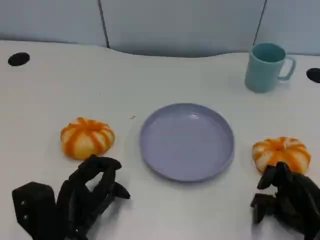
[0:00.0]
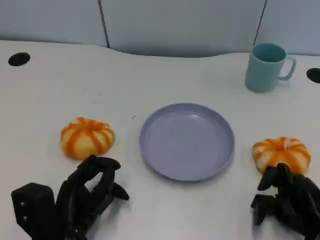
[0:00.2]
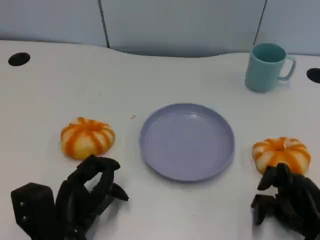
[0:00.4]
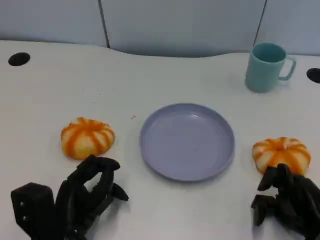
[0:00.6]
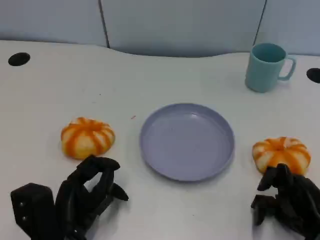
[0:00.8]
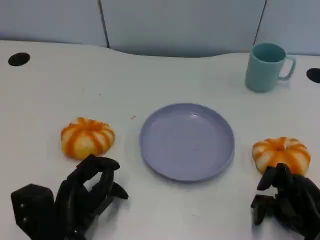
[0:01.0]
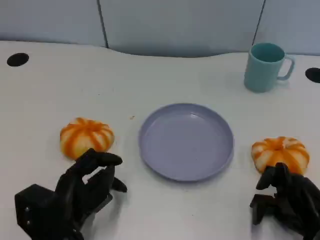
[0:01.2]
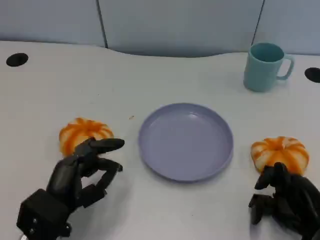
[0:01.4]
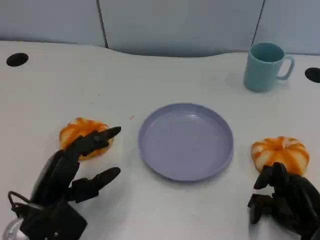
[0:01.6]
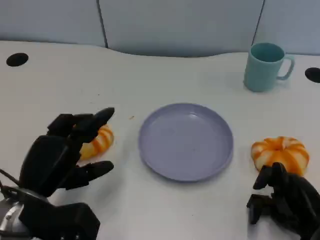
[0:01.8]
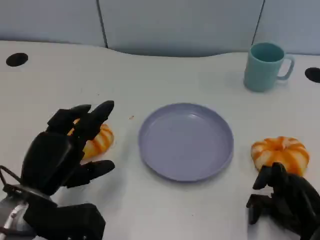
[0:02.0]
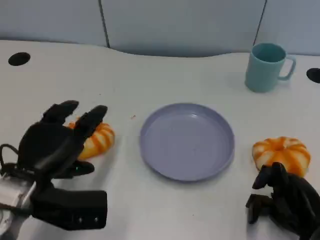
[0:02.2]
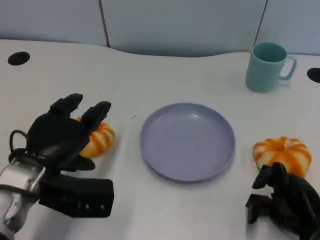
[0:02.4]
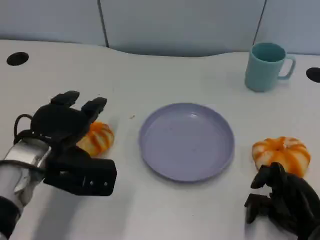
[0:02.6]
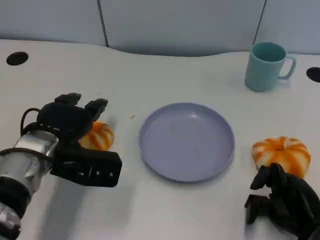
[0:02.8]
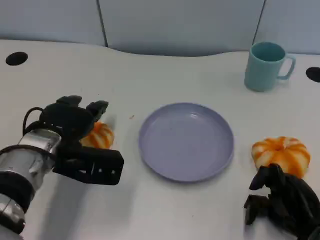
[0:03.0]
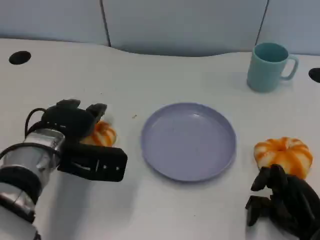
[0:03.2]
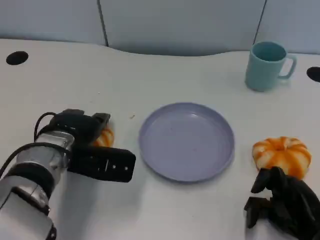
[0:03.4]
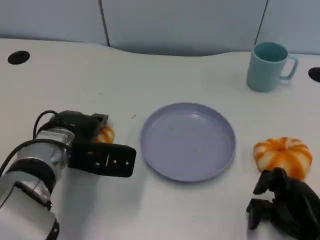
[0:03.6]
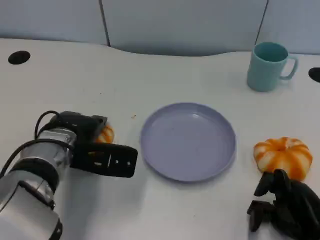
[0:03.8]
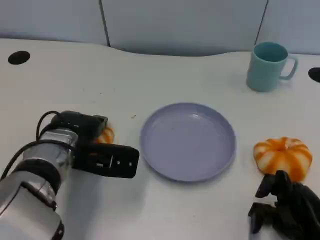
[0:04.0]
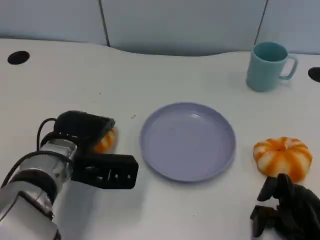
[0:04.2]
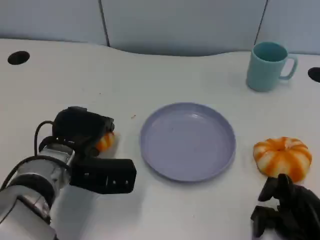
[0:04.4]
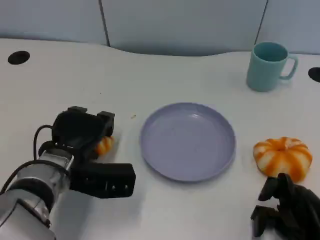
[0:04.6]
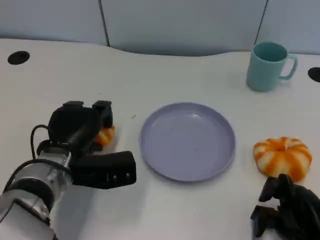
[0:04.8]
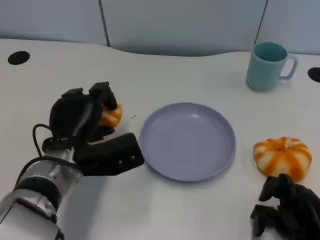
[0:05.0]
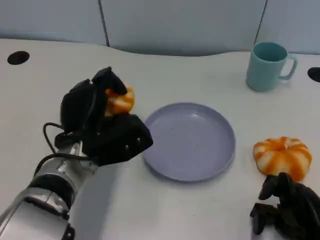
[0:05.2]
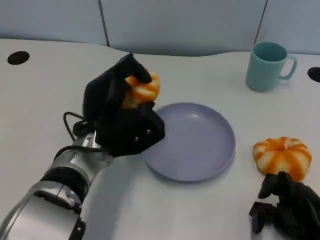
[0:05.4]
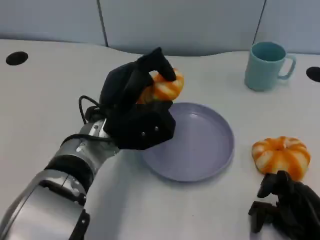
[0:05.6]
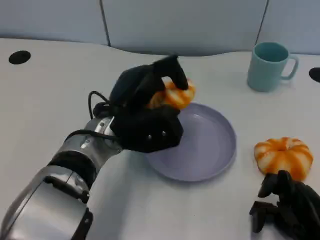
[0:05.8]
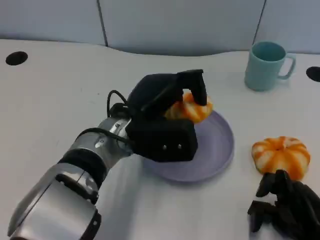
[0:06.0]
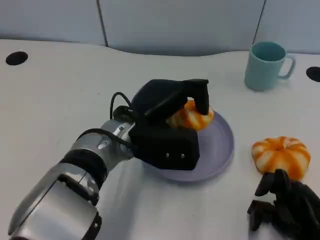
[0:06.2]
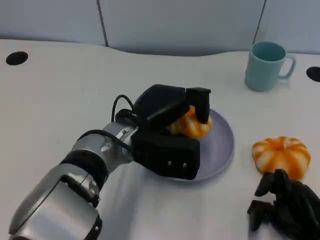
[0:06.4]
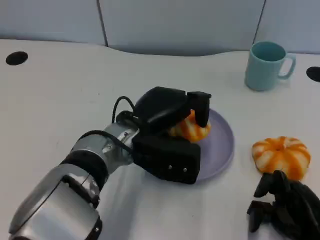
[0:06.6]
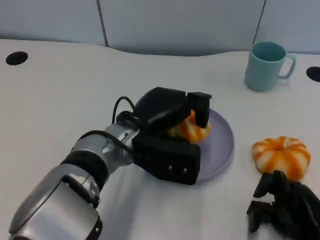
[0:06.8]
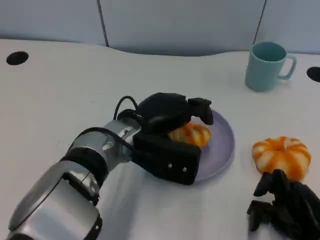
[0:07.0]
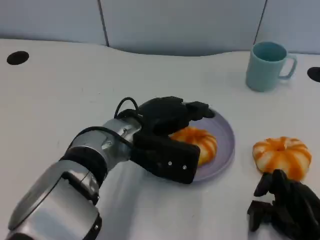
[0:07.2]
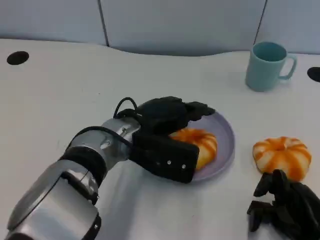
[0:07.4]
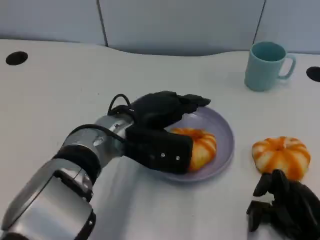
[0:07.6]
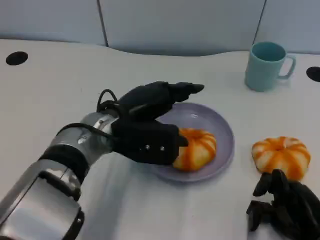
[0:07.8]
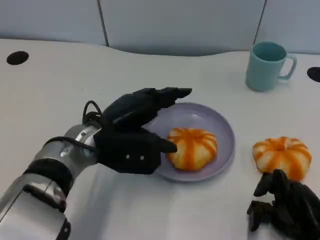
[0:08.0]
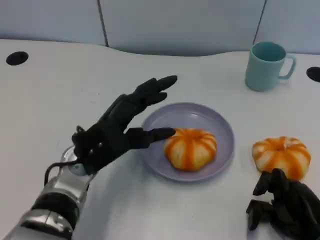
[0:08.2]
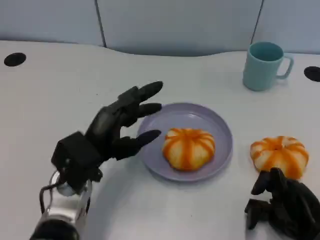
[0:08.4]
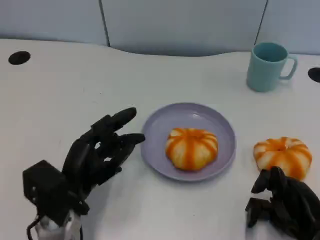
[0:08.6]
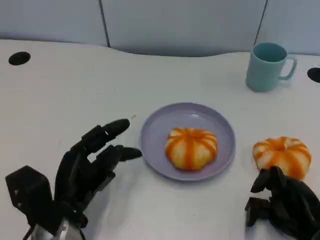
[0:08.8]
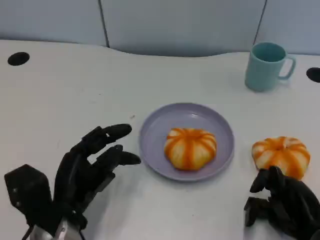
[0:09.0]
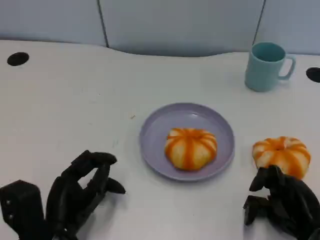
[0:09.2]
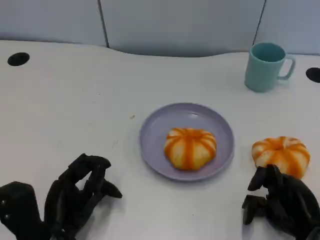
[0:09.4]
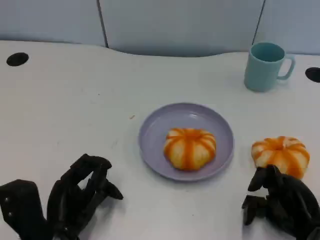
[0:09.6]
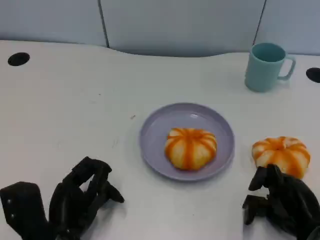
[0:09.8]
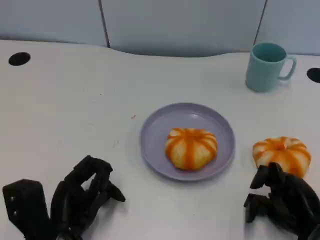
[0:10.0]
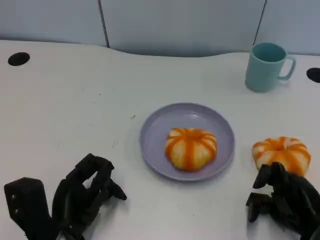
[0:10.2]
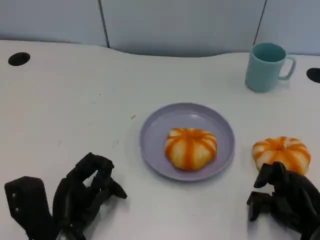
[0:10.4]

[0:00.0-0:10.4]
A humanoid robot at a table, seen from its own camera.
Task of the whole recording: Grasp the bread from the table and place it into the plate.
0:01.4 to 0:03.0: The left hand heads forward and upward, covering about 10 cm.
0:03.0 to 0:04.4: The hands stay close to where they were, moving slightly.
0:04.4 to 0:06.0: The left hand goes roughly 10 cm to the right and upward.
0:07.4 to 0:09.0: The left hand heads to the left, backward and downward, covering approximately 15 cm.
0:09.0 to 0:10.4: The hands make only small movements.

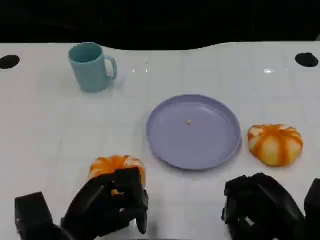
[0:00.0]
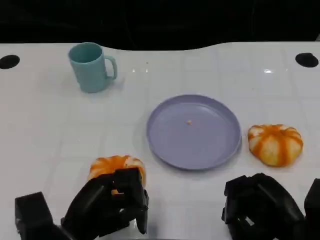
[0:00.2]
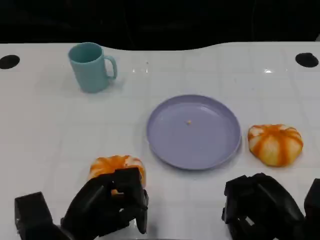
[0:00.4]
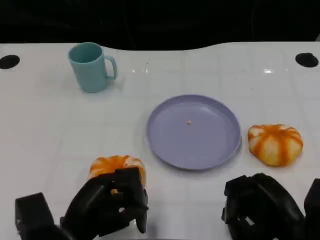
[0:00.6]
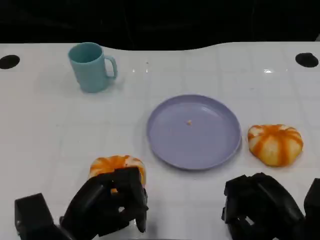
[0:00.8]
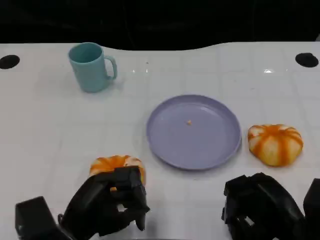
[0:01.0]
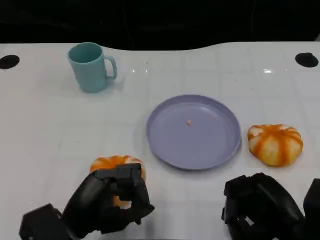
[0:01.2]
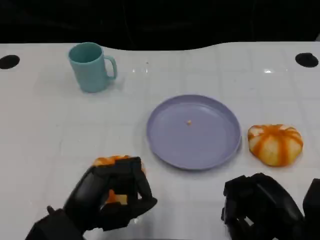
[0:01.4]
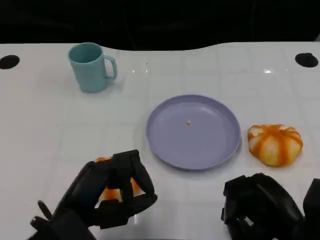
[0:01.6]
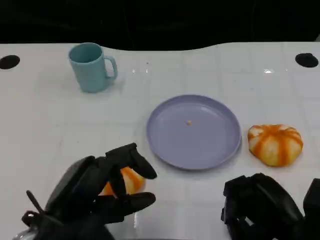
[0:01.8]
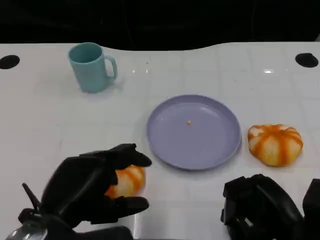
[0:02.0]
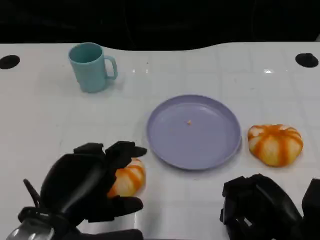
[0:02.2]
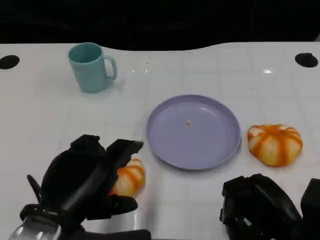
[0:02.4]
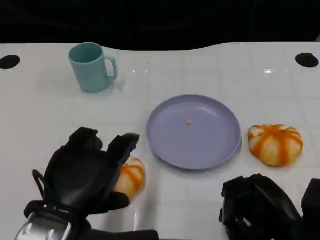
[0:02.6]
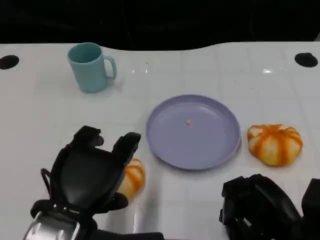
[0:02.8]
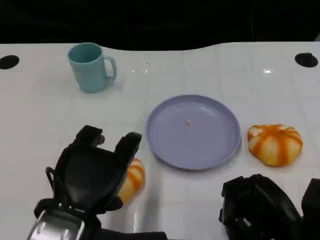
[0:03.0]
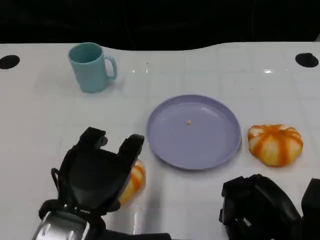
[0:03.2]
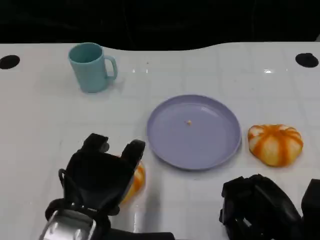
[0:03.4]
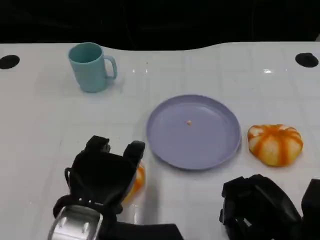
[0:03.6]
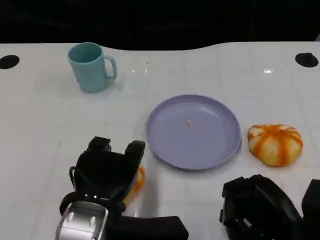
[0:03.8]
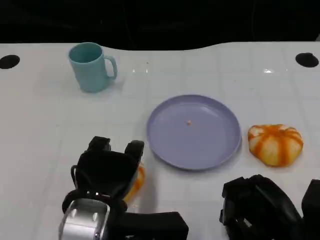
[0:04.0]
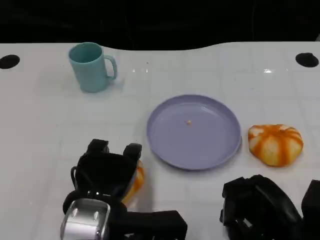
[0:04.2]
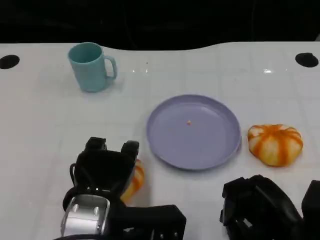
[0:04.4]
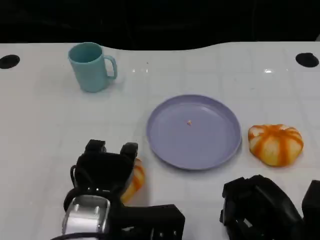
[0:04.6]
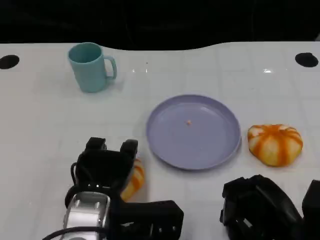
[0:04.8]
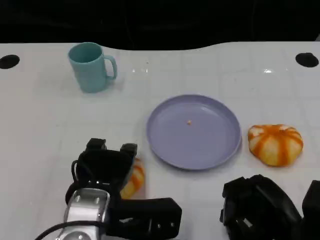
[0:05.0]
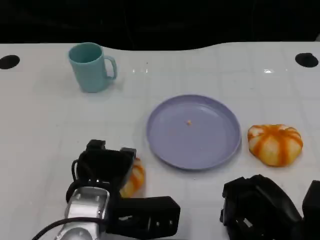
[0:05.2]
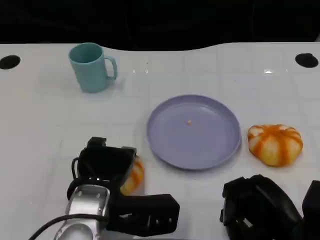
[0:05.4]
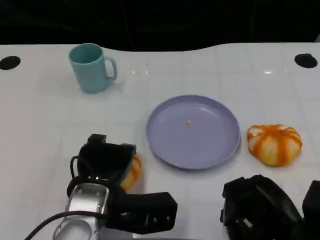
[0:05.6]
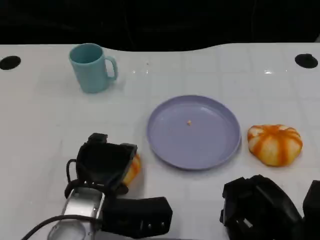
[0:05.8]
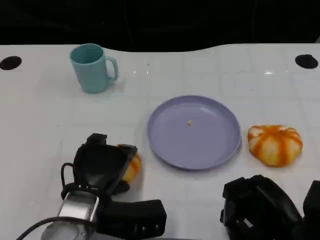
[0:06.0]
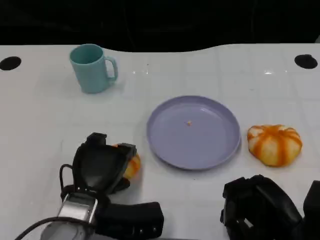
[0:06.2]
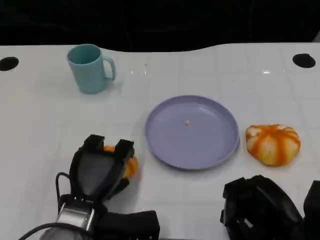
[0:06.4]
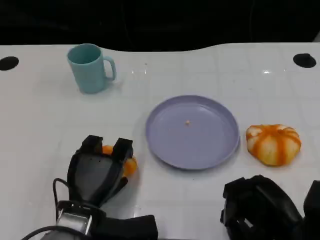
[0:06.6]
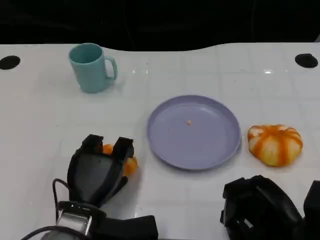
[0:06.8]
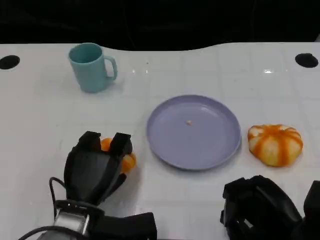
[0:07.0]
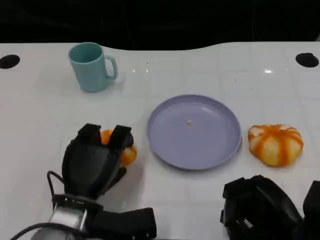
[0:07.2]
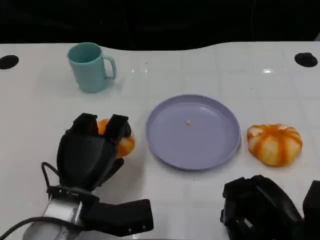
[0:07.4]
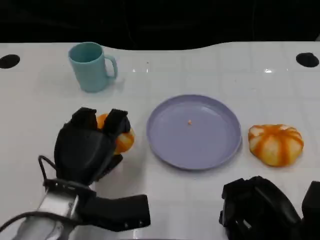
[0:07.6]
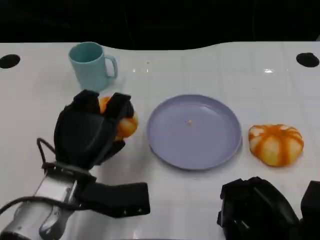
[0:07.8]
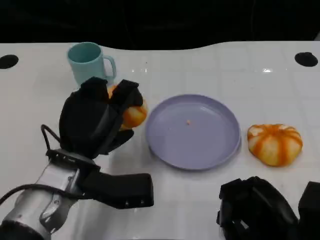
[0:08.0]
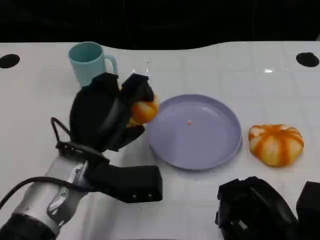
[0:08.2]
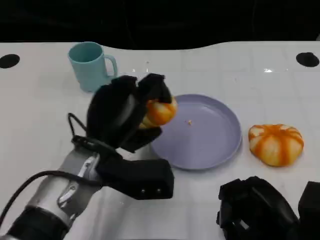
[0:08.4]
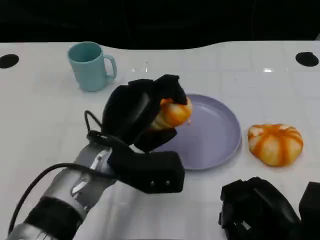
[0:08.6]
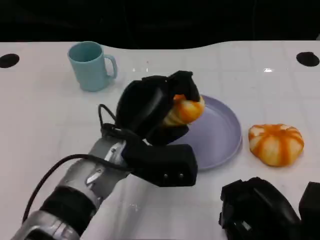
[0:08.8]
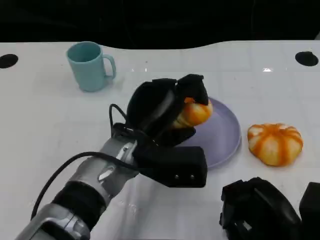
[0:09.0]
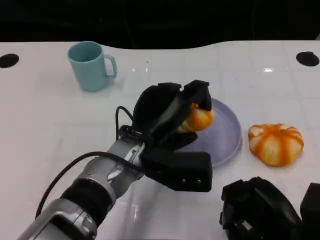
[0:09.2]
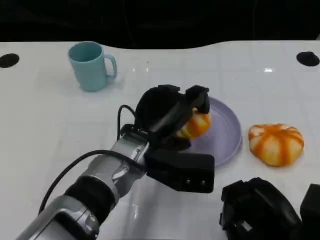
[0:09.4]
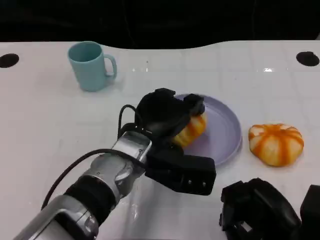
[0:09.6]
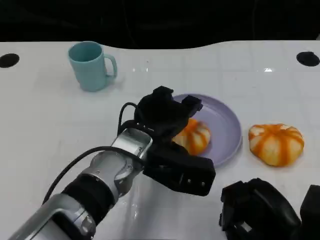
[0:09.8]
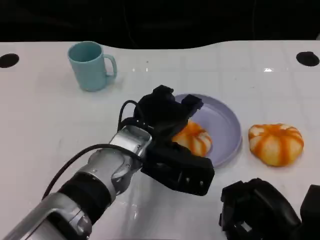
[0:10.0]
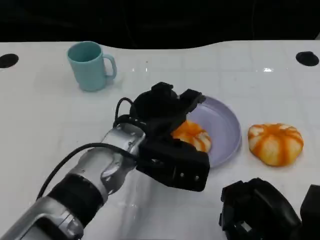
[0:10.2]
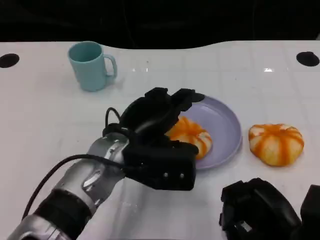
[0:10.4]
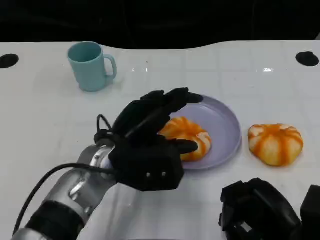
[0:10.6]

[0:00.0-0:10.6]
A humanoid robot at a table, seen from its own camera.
Task of the whole recording: Grasp the bread from the table and place it into the plate.
0:00.0 to 0:01.6: The left hand moves upward, about 5 cm.
0:03.0 to 0:04.6: The left hand ends up roughly 5 cm from where it was.
0:04.6 to 0:06.0: The left hand shifts some 5 cm downward.
0:07.6 to 0:09.0: The left hand travels to the right by about 10 cm.

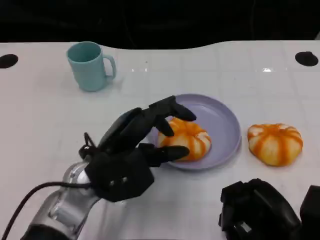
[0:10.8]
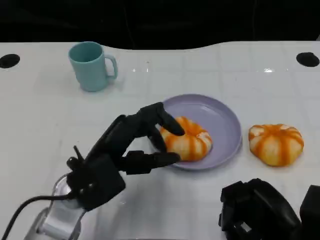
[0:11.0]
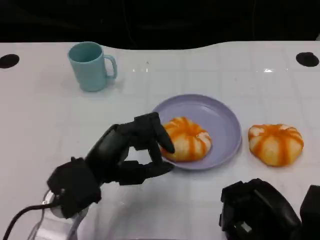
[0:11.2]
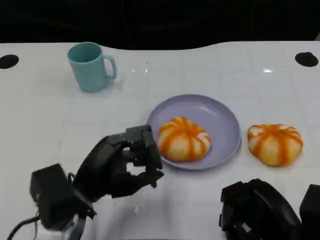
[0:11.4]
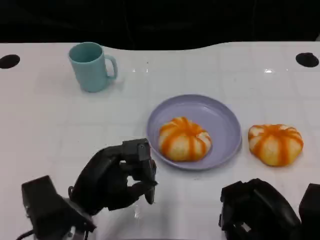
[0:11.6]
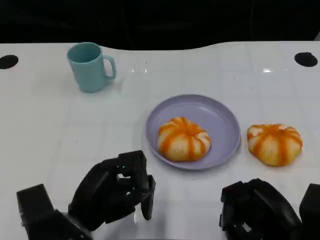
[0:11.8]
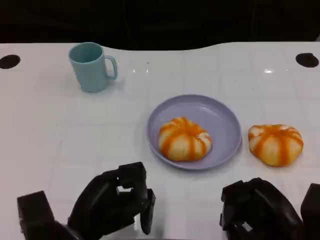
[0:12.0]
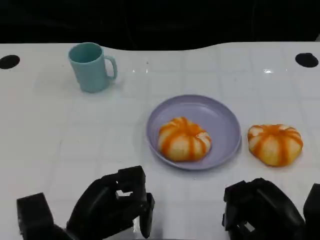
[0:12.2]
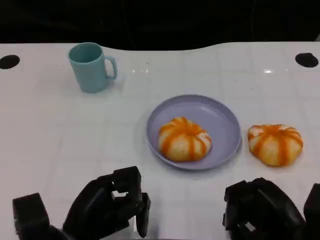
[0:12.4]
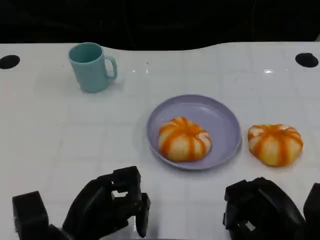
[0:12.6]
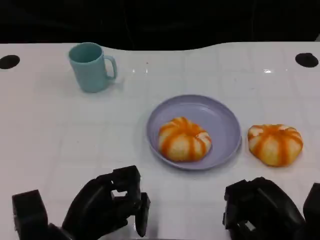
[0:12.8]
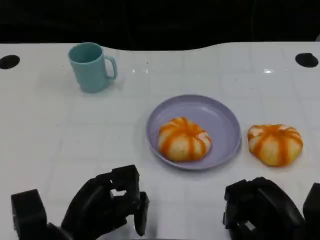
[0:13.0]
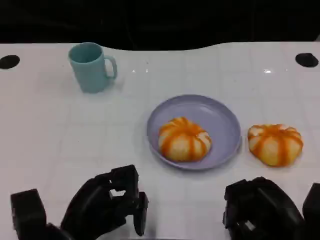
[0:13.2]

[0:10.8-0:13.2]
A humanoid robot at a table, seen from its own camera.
Task of the whole recording: Grasp the bread from the table and place it into the plate.
0:10.8 to 0:12.0: The left hand heads backward and downward, covering roughly 10 cm.
0:12.0 to 0:13.2: Both hands stay put.
